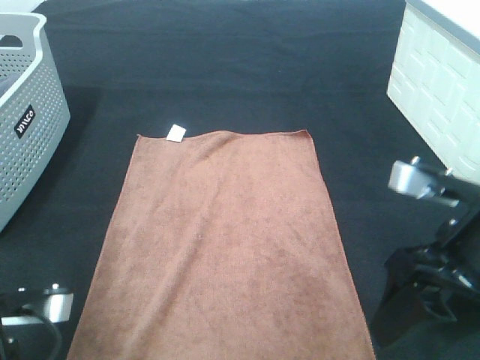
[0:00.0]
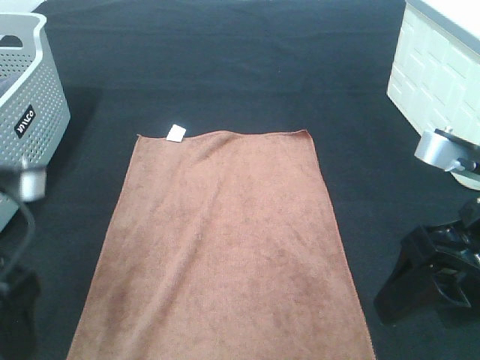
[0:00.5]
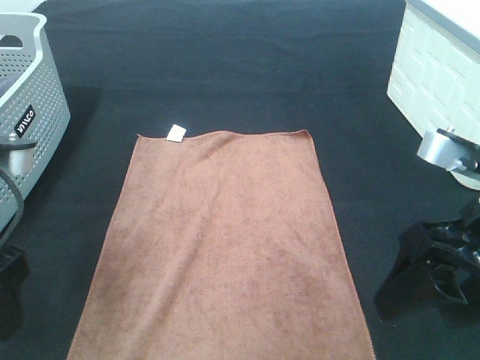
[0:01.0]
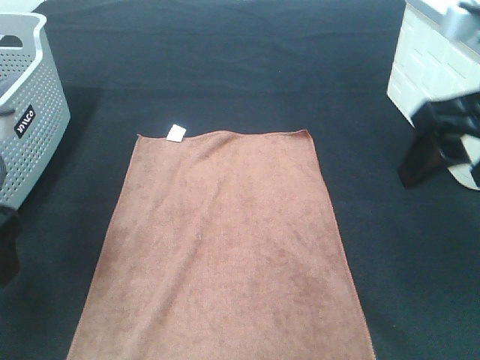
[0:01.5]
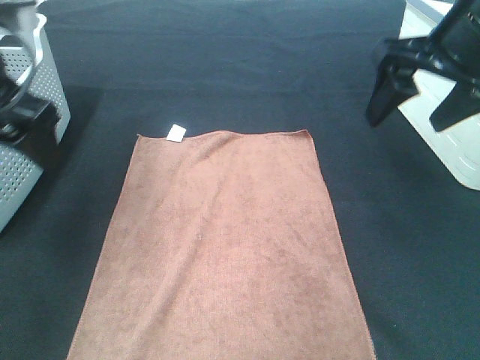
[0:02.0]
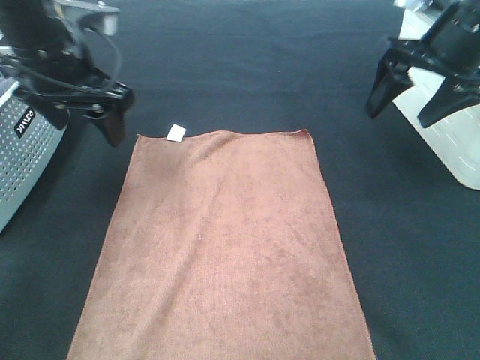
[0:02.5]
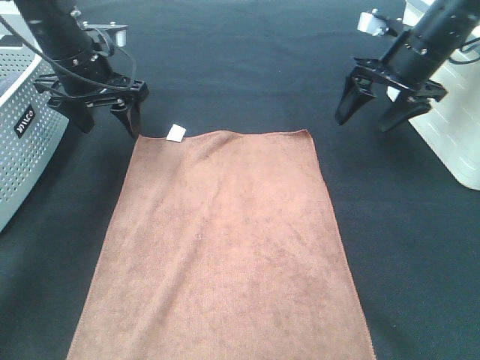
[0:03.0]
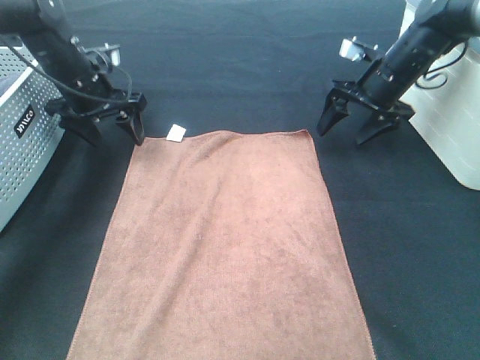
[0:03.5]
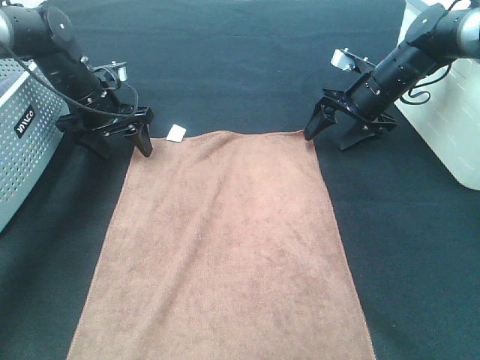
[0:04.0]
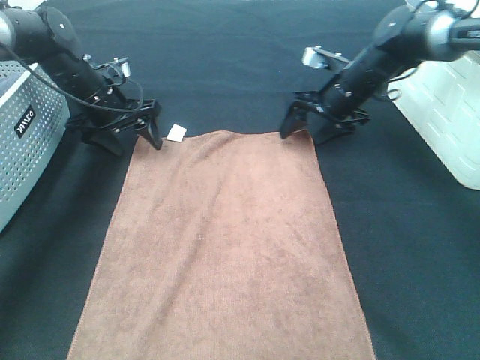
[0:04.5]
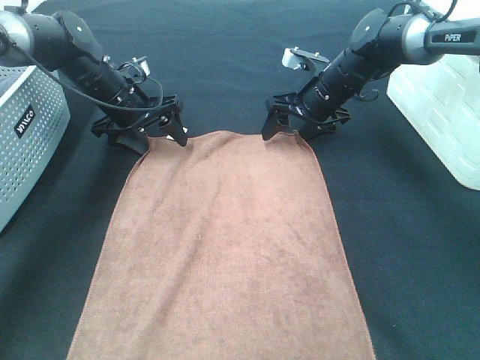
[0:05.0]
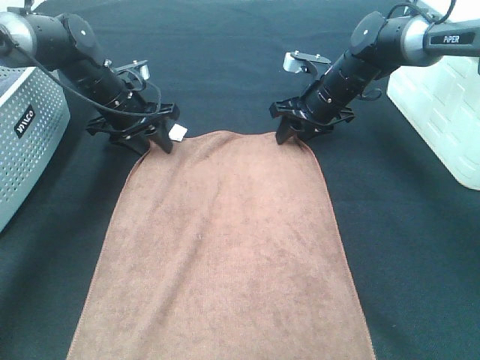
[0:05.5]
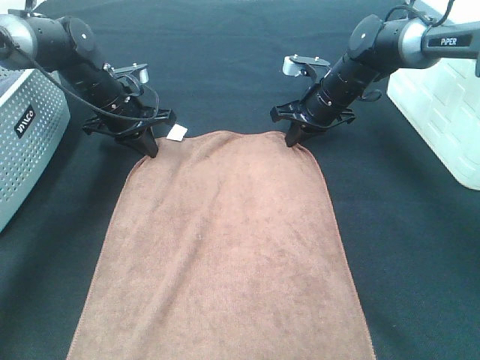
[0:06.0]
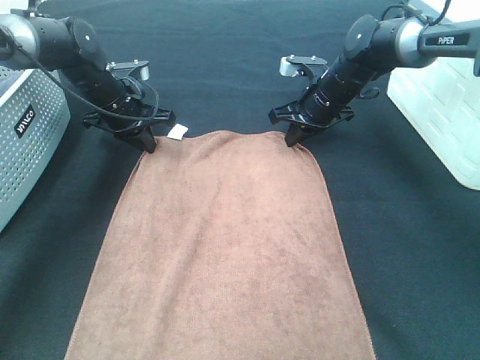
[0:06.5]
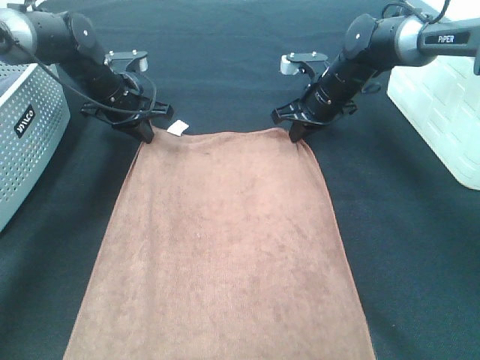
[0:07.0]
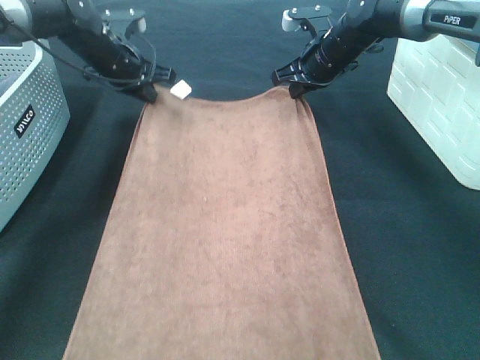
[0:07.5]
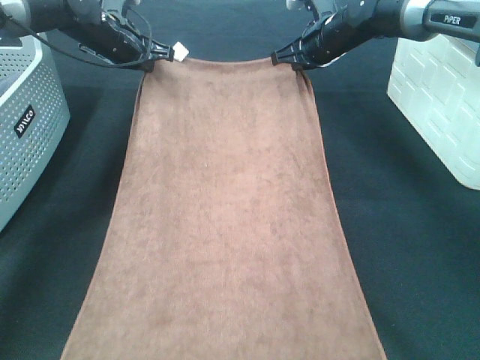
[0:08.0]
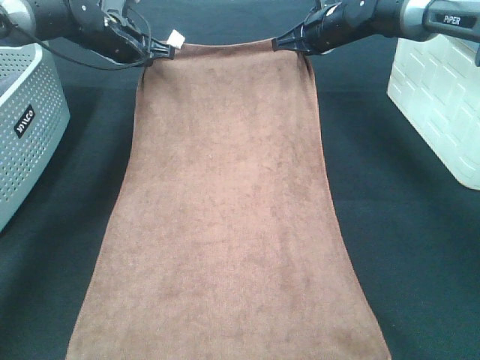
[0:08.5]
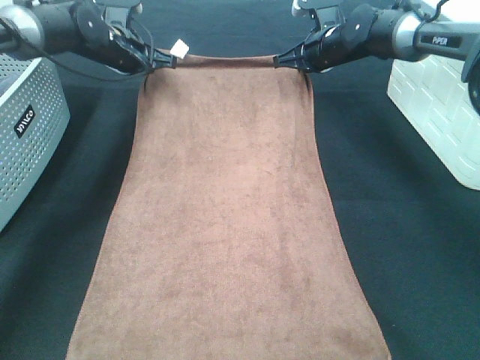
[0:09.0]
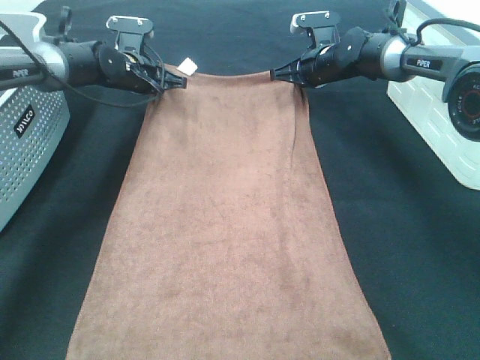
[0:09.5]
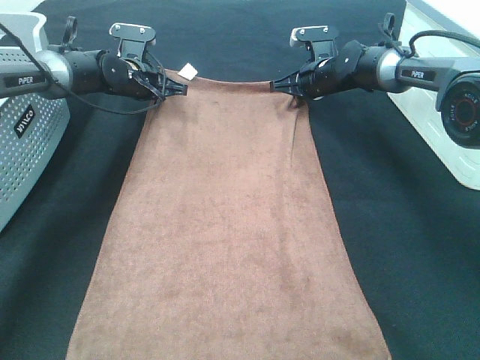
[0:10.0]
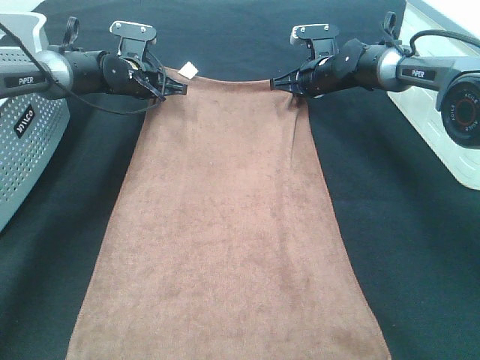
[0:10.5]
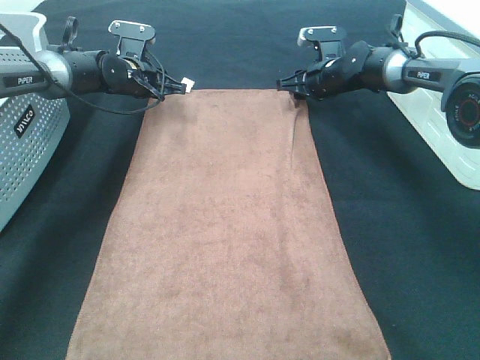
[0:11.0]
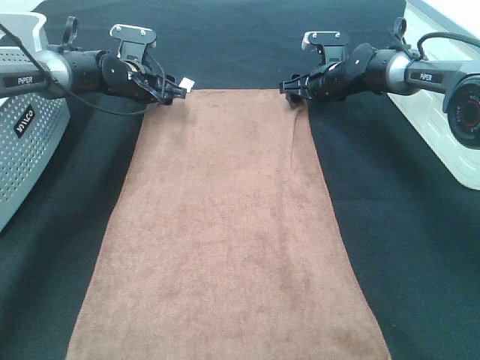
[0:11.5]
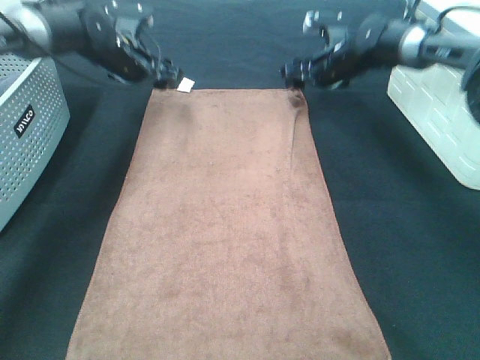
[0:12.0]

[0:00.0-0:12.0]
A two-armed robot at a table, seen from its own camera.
Task of the whole recording: Remove the towel and place it.
Step, 0:00.0 to 0:04.5: Left hand:adjust the brown towel.
Step, 0:00.0 to 0:04.5: Right hand:adjust the brown towel.
0:00.0 to 0:02.0: Both grippers travel together forward and upward, about 20 cm.
0:02.0 to 0:04.0: The left gripper heads forward and downward, covering approximately 25 cm; the right gripper heads downward and forward, covering about 25 cm.
0:04.0 to 0:06.0: The left gripper closes its fingers. The right gripper goes about 5 cm to the left, and closes its fingers.
0:06.0 to 0:08.0: Both grippers move upward and forward, roughly 10 cm.
0:08.0 to 0:10.0: Both grippers travel together downward, roughly 10 cm.
0:10.0 to 0:12.0: The left gripper moves upward, about 5 cm, and opens up; the right gripper opens its fingers.

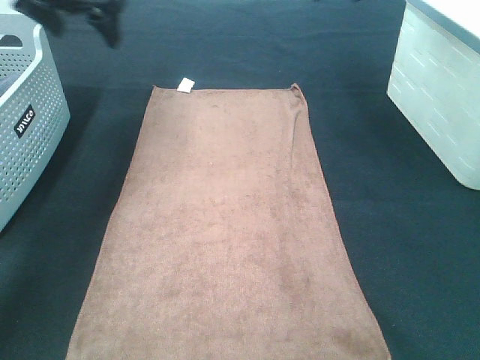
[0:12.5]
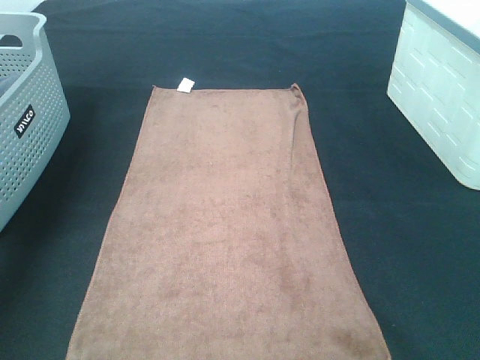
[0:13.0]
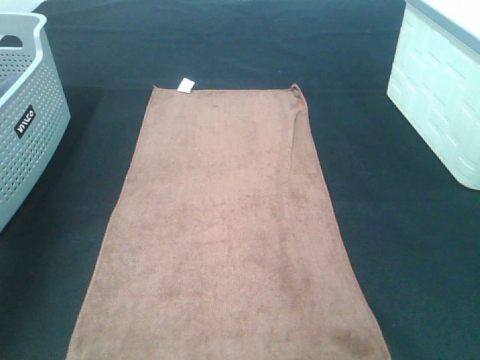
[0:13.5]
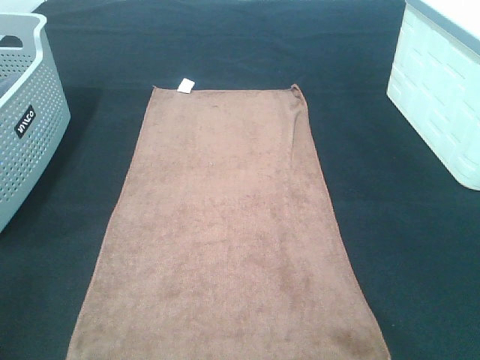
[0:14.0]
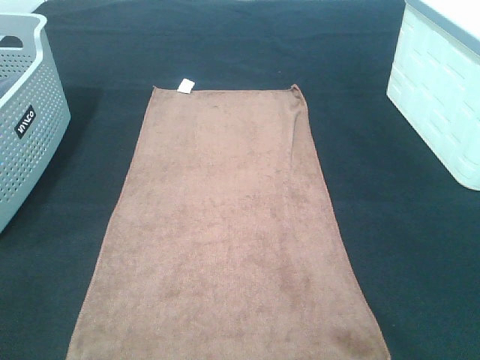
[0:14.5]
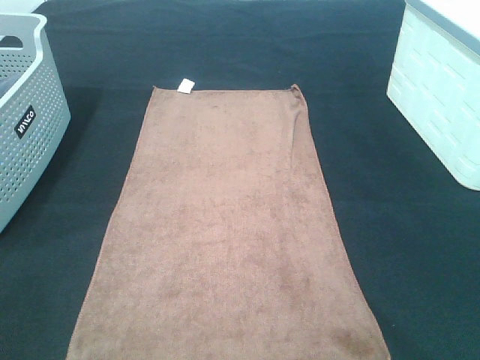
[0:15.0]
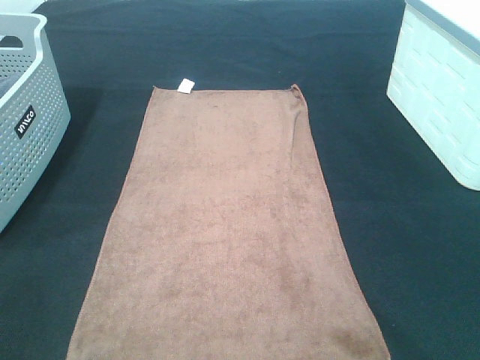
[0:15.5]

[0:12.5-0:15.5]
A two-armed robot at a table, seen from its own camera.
Task of the whole recording: Remove the towel and place it.
0:12.5 to 0:14.0: The grippers both shift backward by approximately 40 cm.
